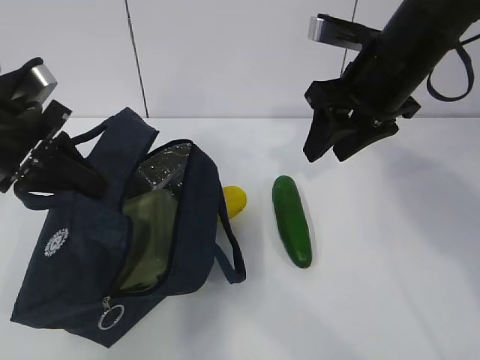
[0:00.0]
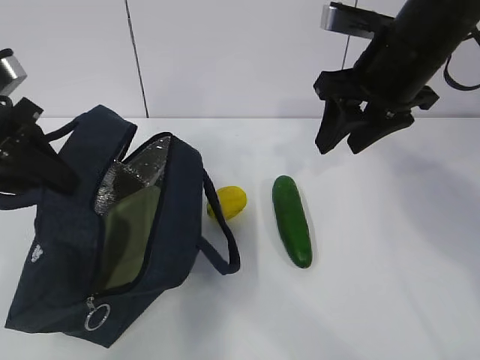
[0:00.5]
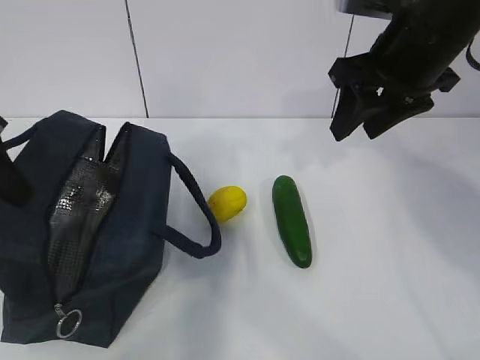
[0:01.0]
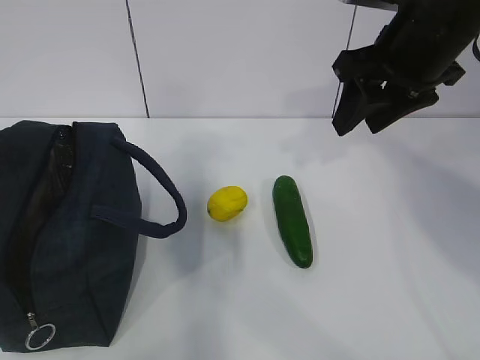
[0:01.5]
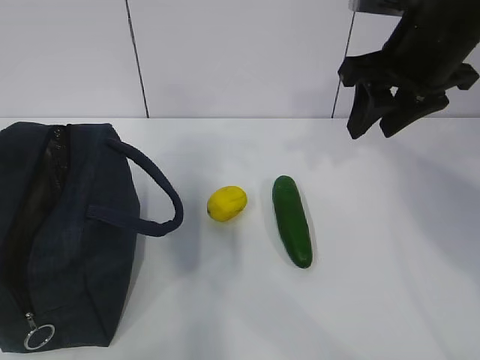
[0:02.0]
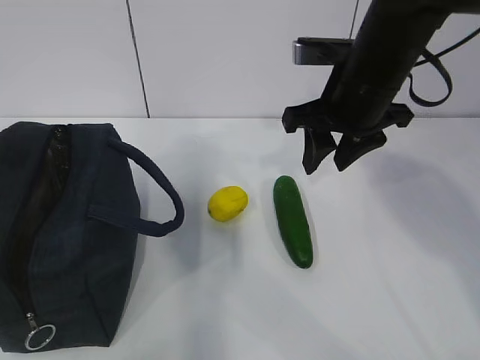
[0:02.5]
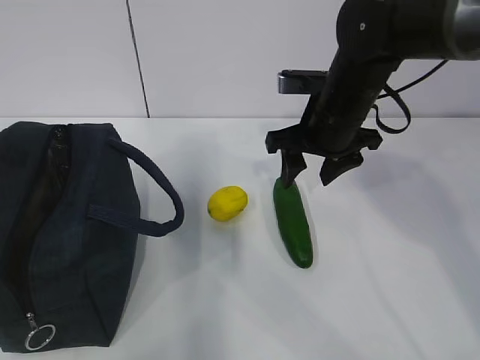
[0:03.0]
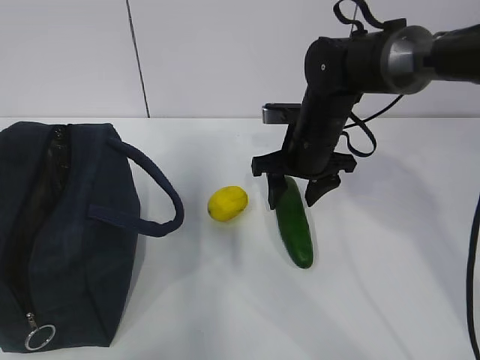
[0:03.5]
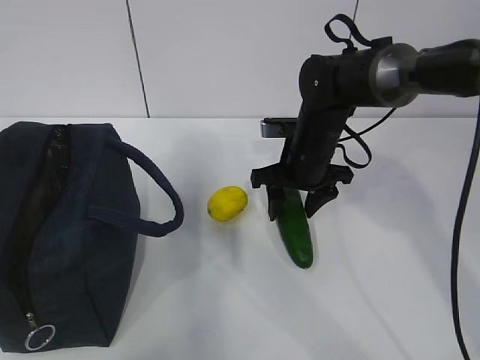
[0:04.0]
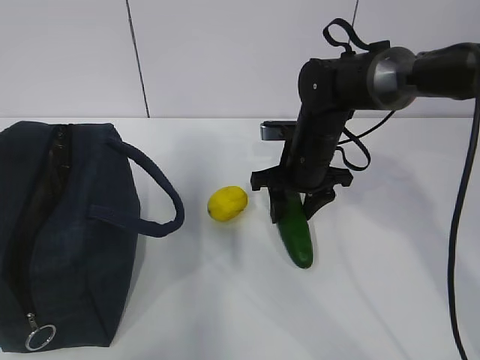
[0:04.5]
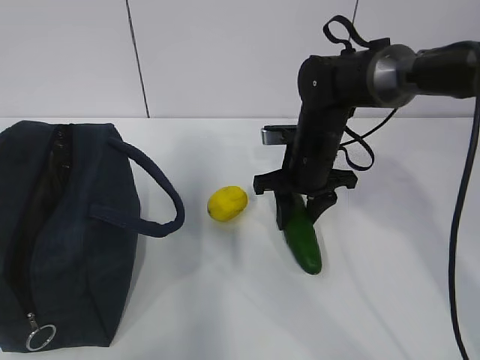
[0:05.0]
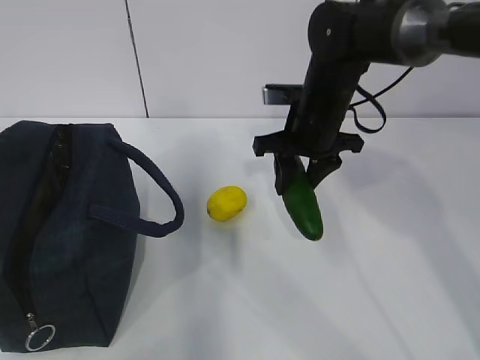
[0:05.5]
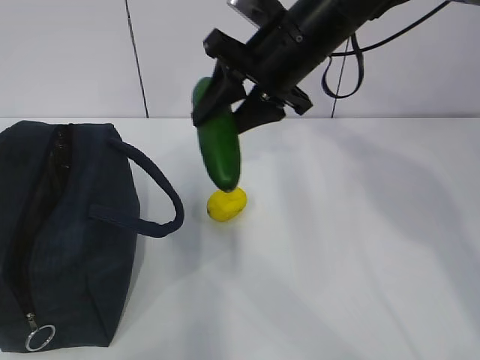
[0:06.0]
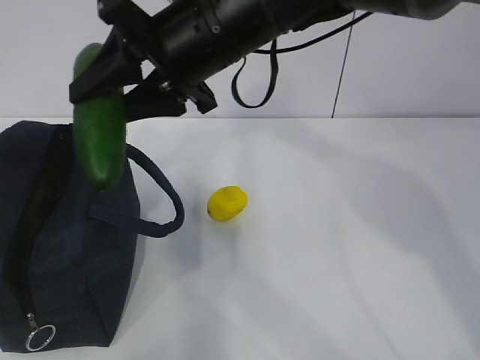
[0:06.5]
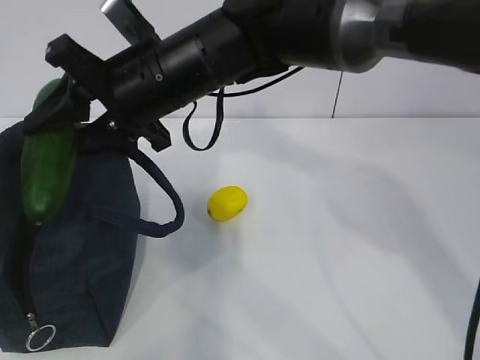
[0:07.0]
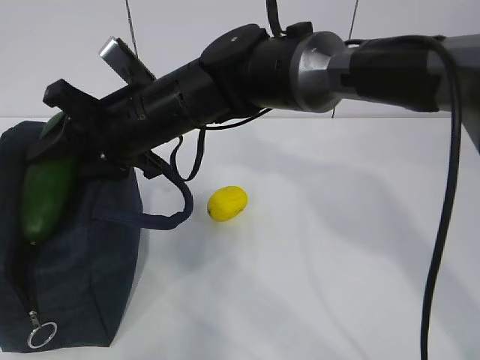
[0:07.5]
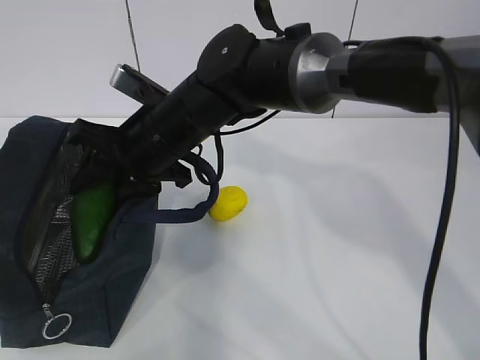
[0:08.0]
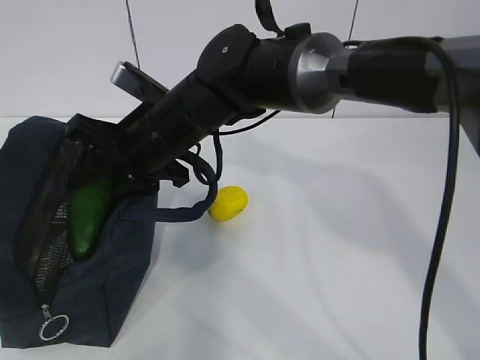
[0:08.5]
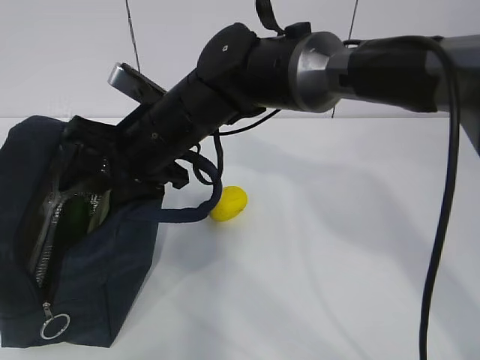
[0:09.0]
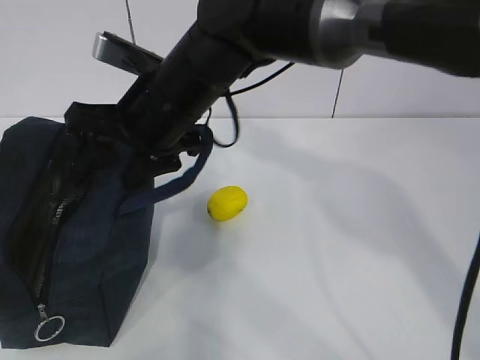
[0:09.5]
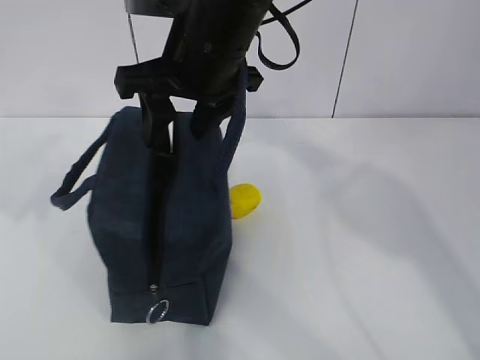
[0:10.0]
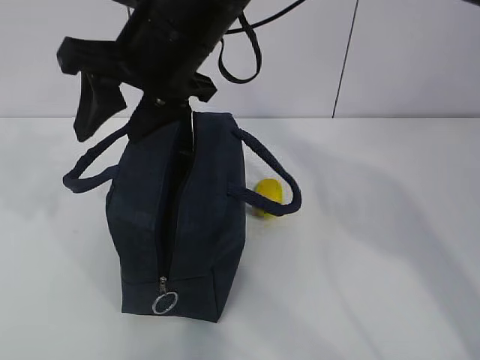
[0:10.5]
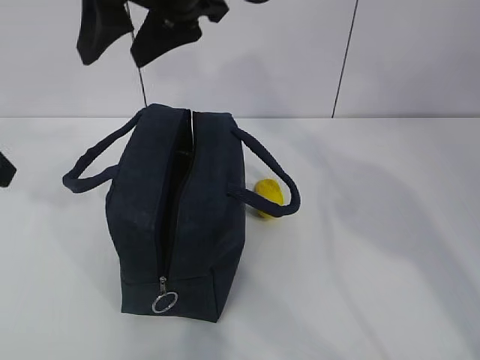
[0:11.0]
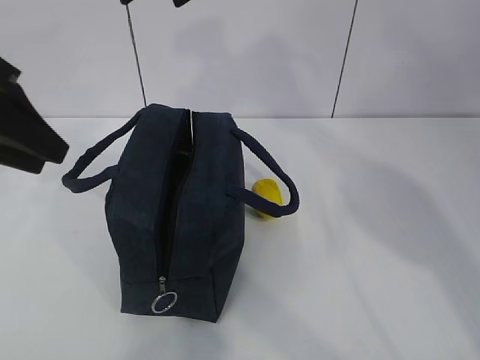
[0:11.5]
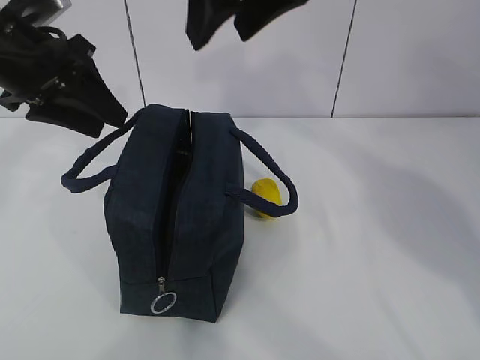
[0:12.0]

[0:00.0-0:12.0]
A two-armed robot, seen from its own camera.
Step, 0:00.0 to 0:02.5: Place it into the bag with your right hand.
Step, 0:03.0 to 0:09.5: Grab the lemon with your right hand.
0:00.0 to 0:02.0: The left gripper heads upward, to the left and backward, covering approximately 10 cm, and opens.
0:02.0 to 0:04.0: The right gripper travels downward and forward by some 20 cm.
0:04.0 to 0:06.0: The right gripper is displaced upward by some 15 cm.
0:06.0 to 0:08.0: The right gripper shifts about 15 cm to the left and downward.
0:08.0 to 0:10.0: The right gripper is displaced upward and to the right by about 10 cm.
0:10.0 to 0:12.0: The left gripper heads to the right and forward, covering approximately 10 cm; the right gripper shifts some 10 cm upward.

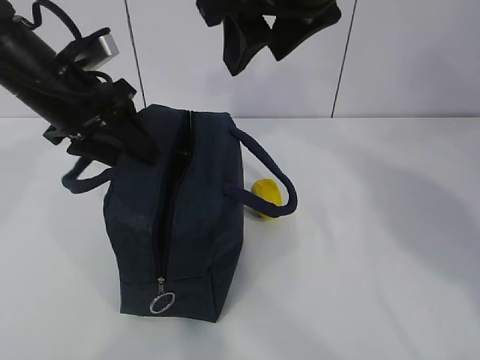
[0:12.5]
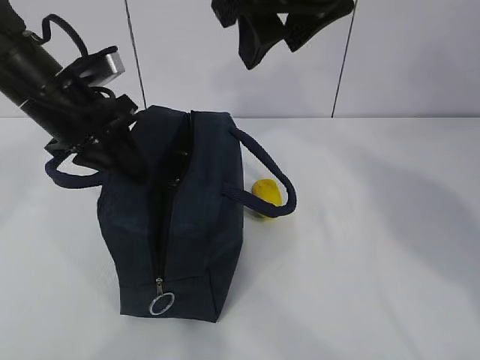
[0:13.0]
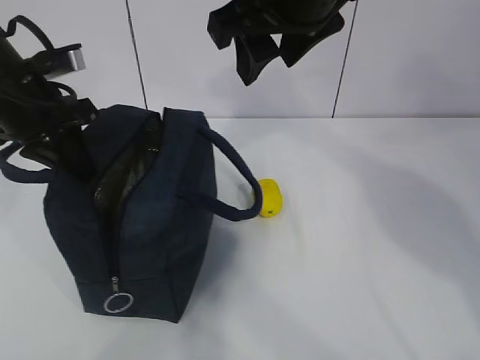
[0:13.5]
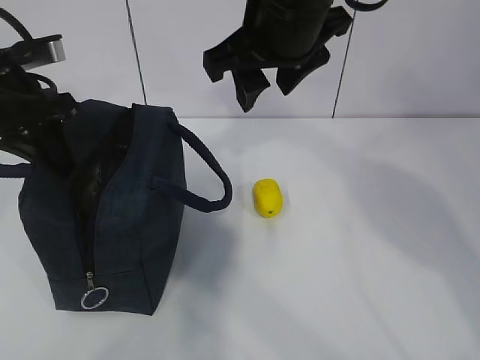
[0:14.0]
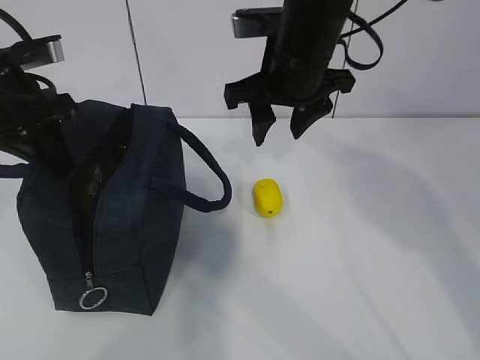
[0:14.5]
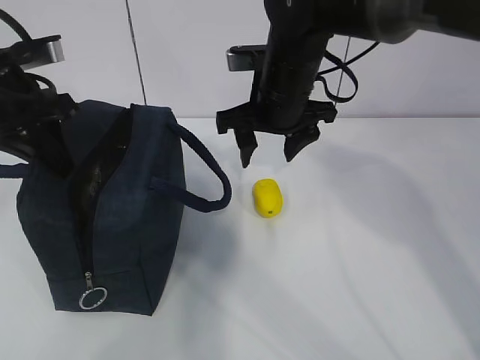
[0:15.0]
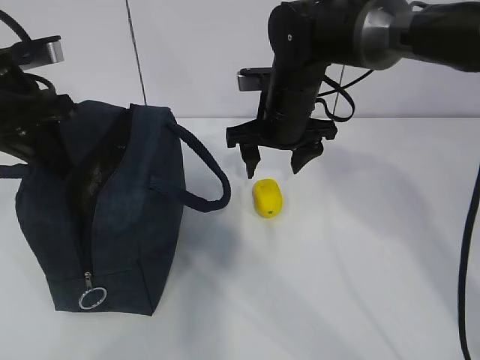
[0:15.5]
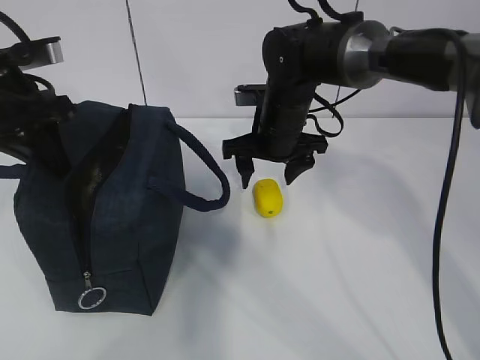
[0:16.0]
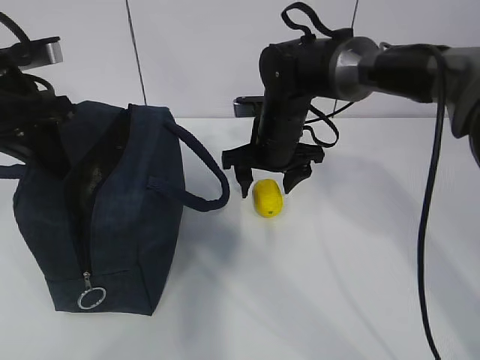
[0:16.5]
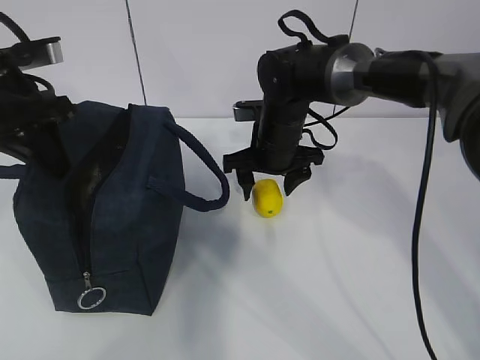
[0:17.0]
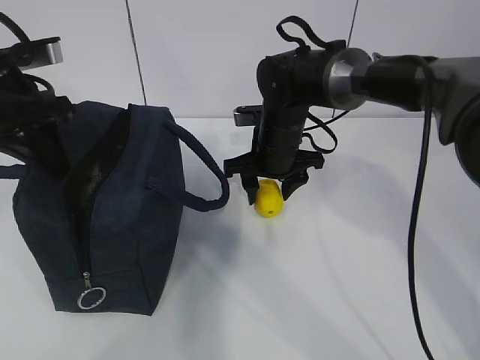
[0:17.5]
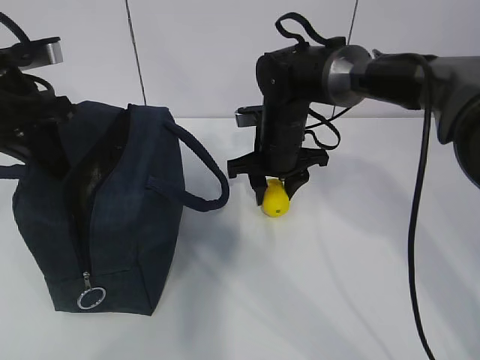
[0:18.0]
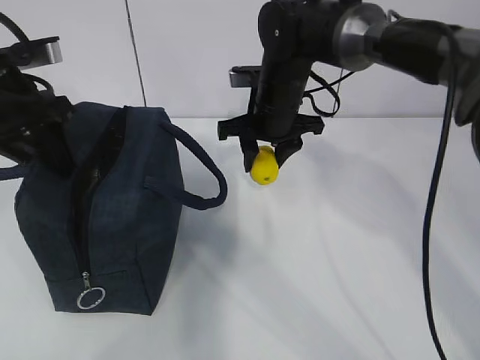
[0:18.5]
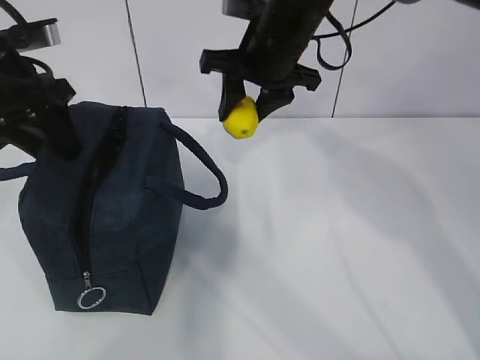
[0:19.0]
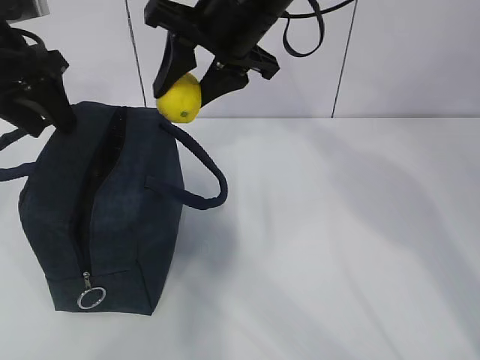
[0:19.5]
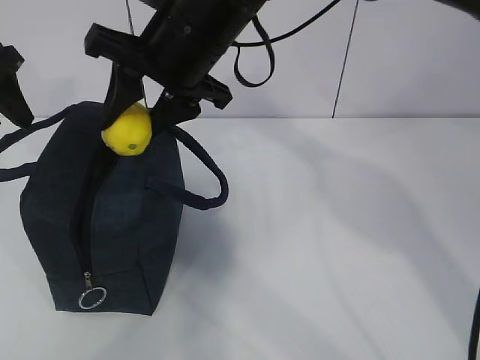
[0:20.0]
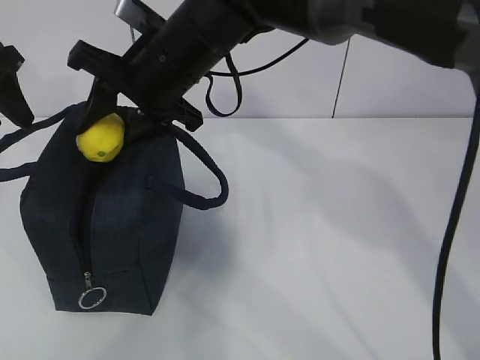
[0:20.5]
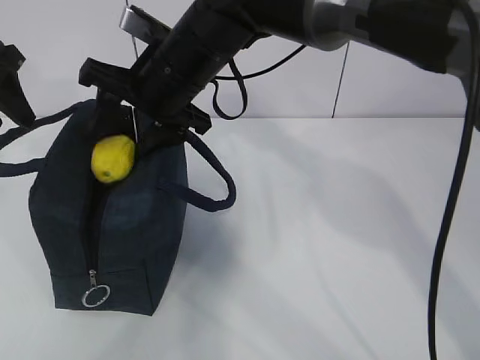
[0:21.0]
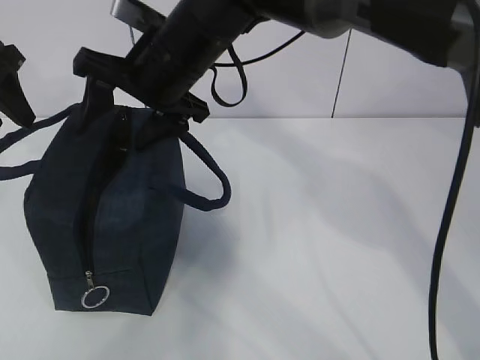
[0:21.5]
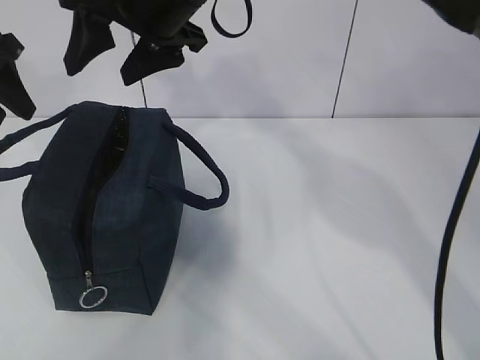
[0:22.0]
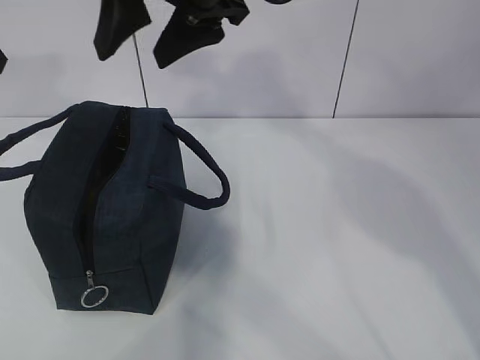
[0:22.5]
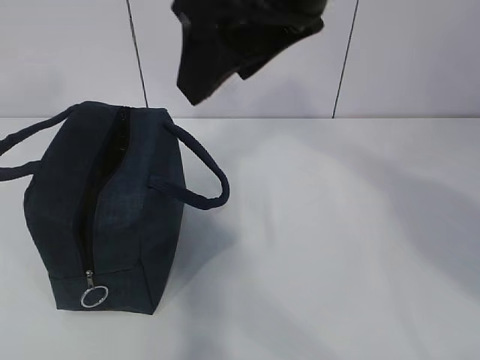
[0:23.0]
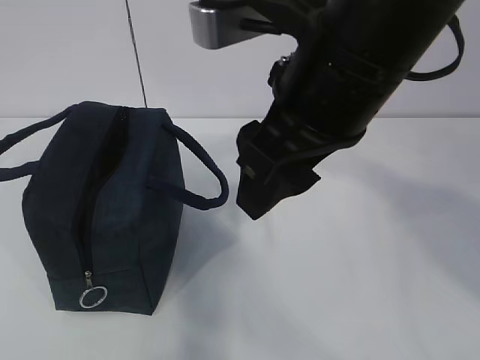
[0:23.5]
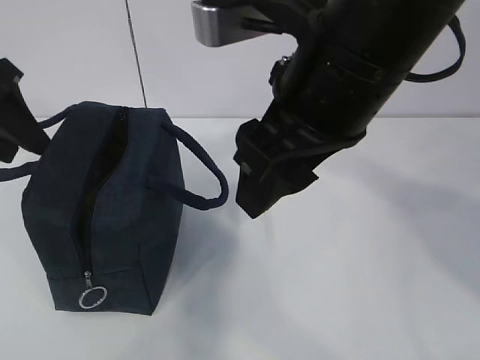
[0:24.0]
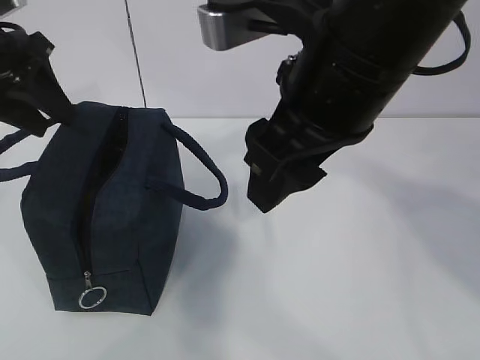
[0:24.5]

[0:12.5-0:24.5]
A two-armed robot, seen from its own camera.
0:12.5 to 0:14.5: The right gripper travels downward and forward by some 15 cm, while the left gripper changes place by approximately 5 cm, and closes.
0:14.5 to 0:16.5: The right gripper travels downward and forward by some 15 cm.
0:16.5 to 0:18.5: The left gripper opens its fingers. The right gripper closes.
0:18.5 to 0:20.5: The right gripper heads to the left, upward and backward, covering some 15 cm. The left gripper moves to the left, about 5 cm, and opens.
0:20.5 to 0:22.5: Both grippers move upward, about 10 cm.
0:22.5 to 0:24.5: The right gripper moves backward and to the right, approximately 15 cm, while the left gripper is displaced downward by about 5 cm, and travels backward and back again, roughly 10 cm each way.

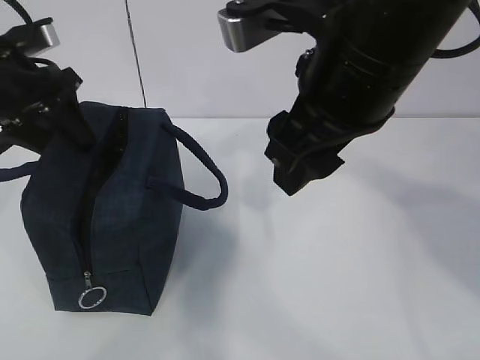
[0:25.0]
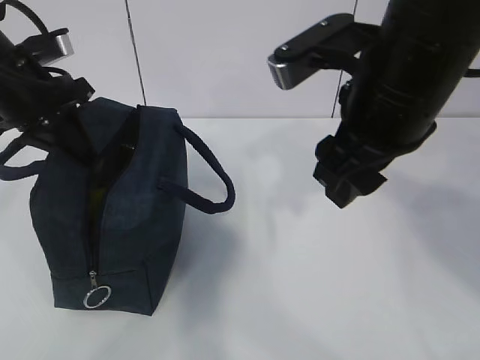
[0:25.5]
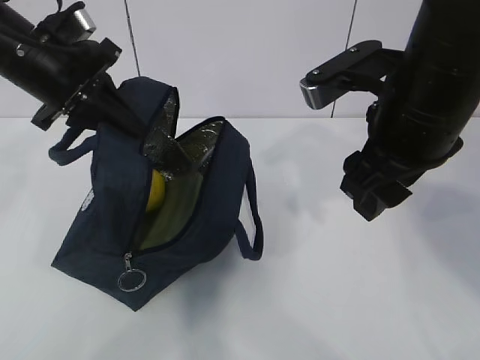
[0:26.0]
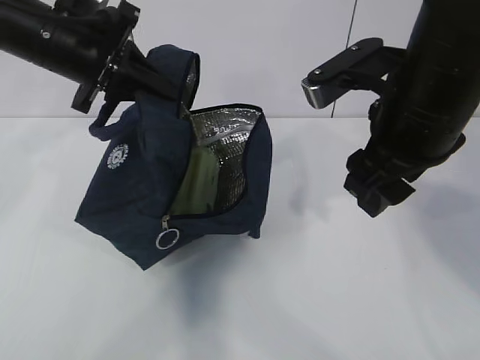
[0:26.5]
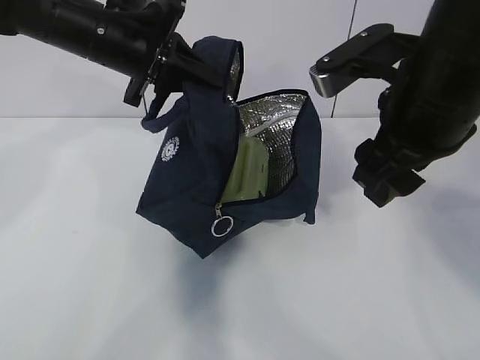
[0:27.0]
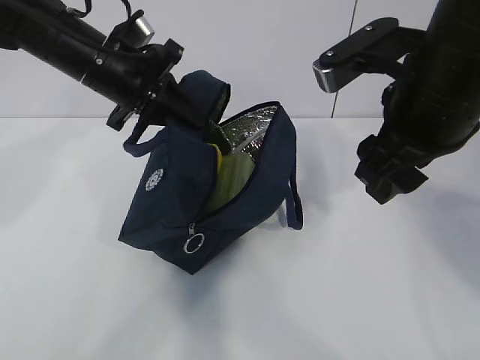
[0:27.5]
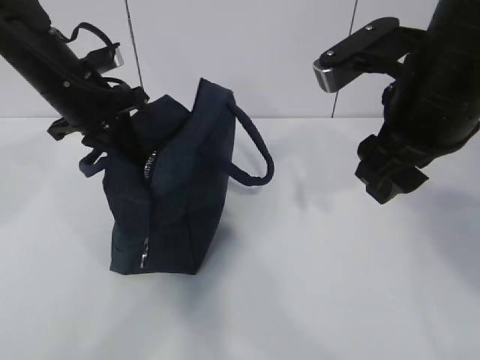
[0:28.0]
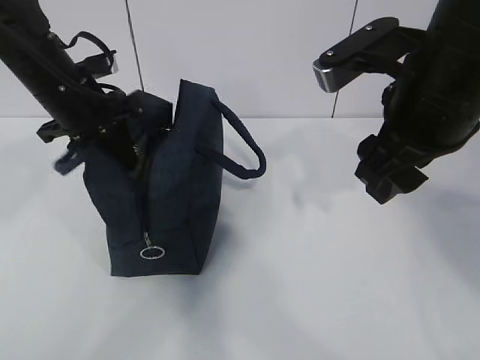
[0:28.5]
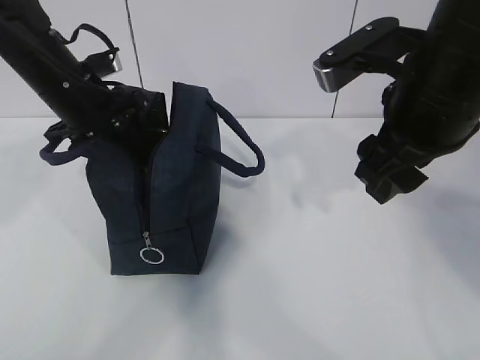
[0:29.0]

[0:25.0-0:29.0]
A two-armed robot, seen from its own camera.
0:25.0 to 0:27.0: The right gripper is displaced to the right by roughly 5 cm. Meanwhile the left gripper moves to the right, some 10 cm, and closes its fingers.
0:27.0 to 0:29.0: The left gripper moves downward and to the left, approximately 10 cm, and opens up.
